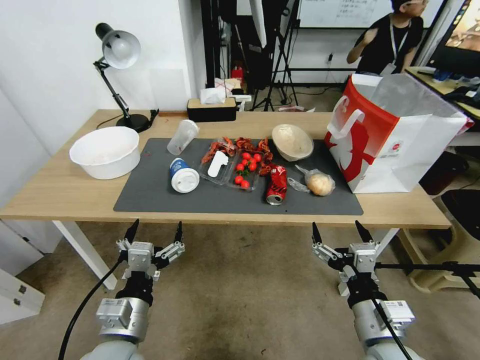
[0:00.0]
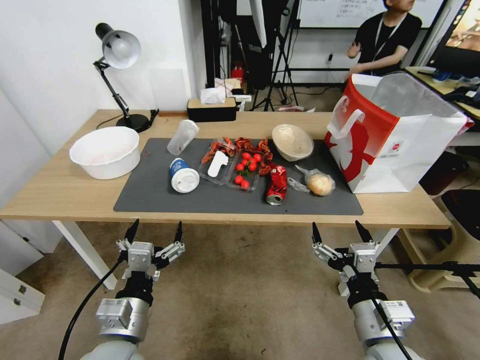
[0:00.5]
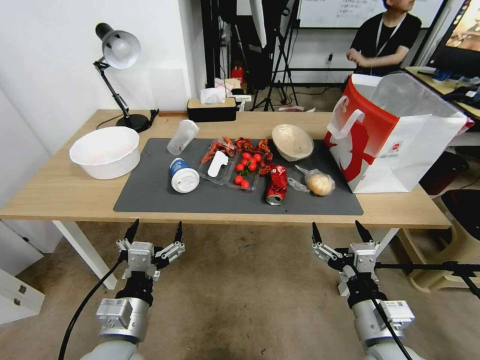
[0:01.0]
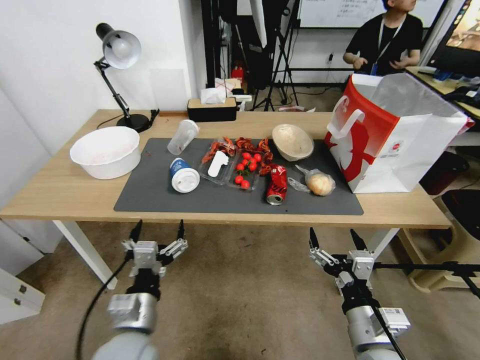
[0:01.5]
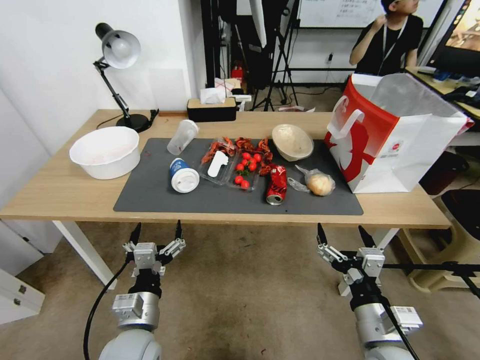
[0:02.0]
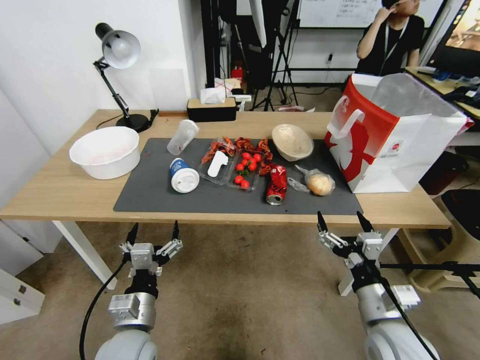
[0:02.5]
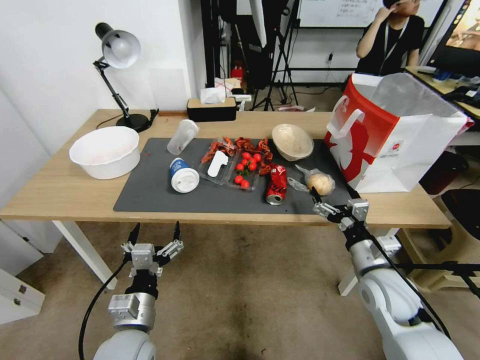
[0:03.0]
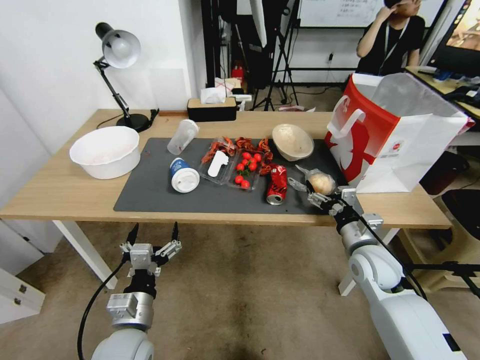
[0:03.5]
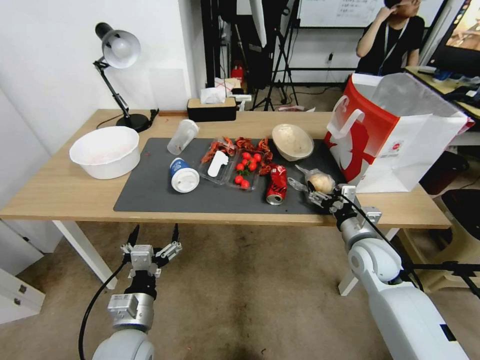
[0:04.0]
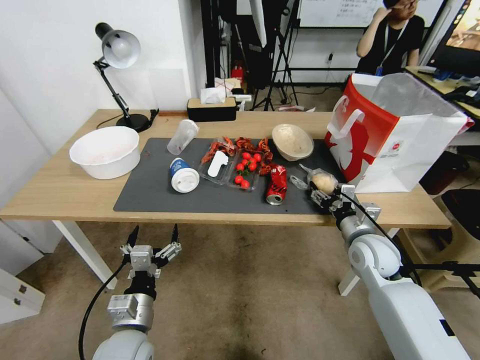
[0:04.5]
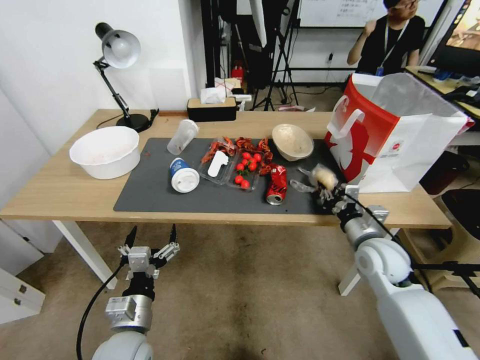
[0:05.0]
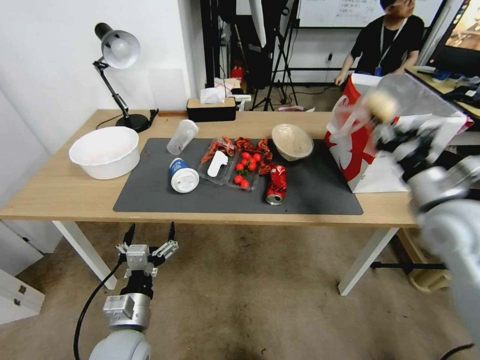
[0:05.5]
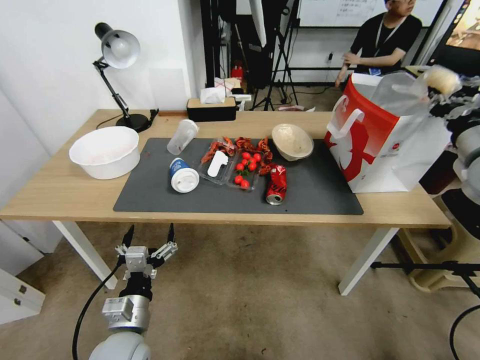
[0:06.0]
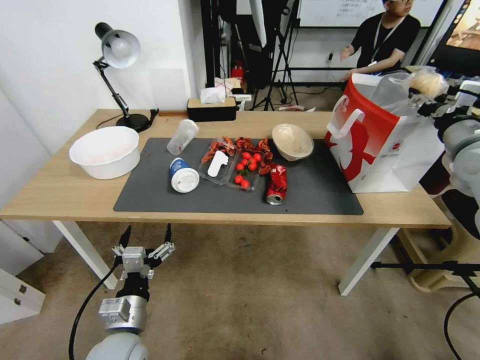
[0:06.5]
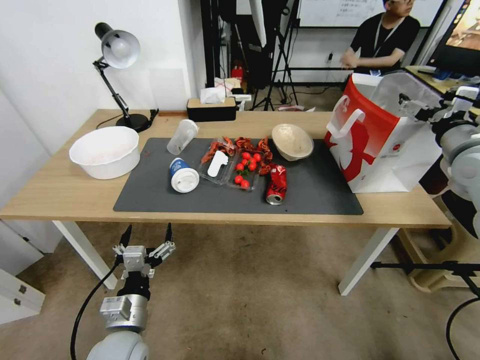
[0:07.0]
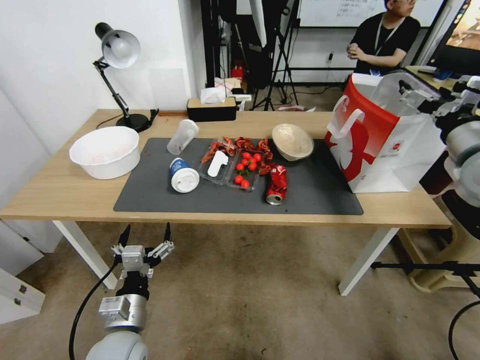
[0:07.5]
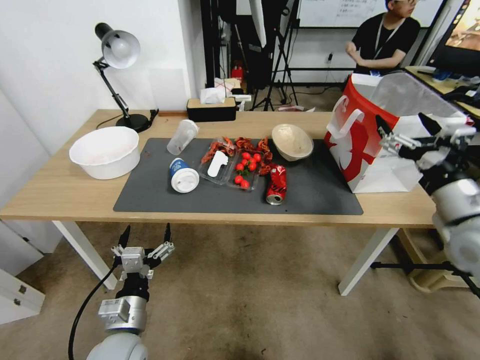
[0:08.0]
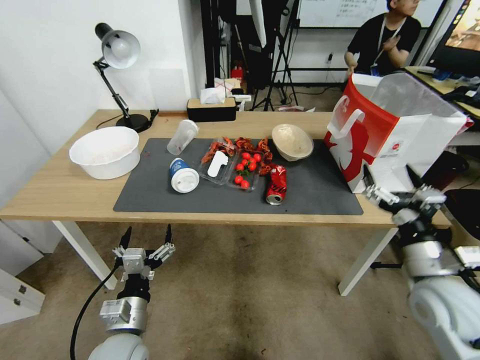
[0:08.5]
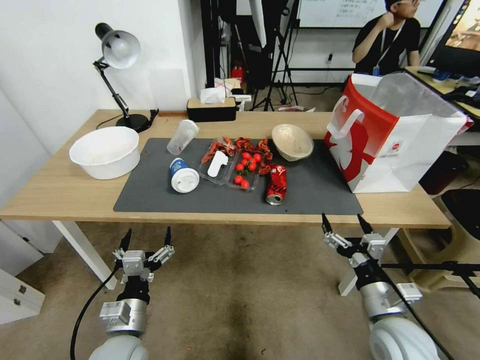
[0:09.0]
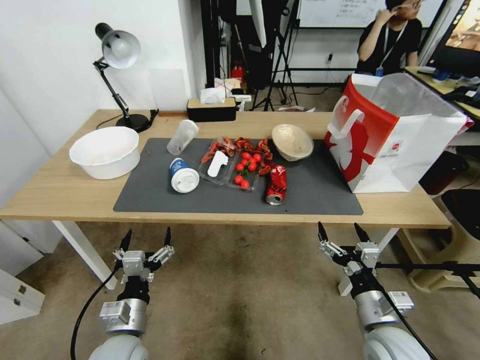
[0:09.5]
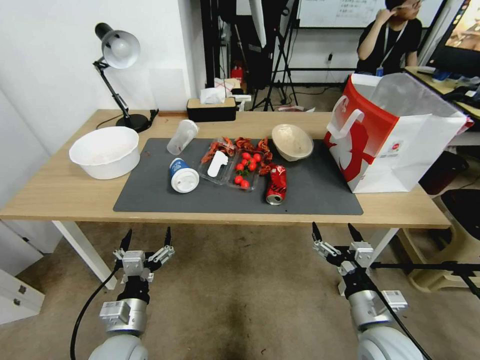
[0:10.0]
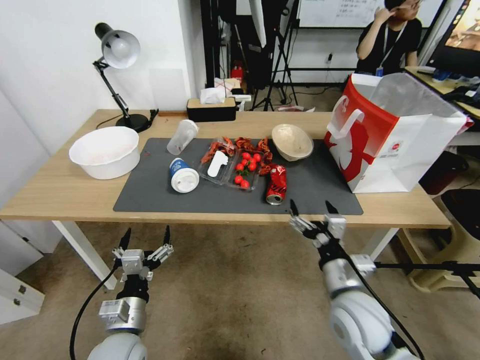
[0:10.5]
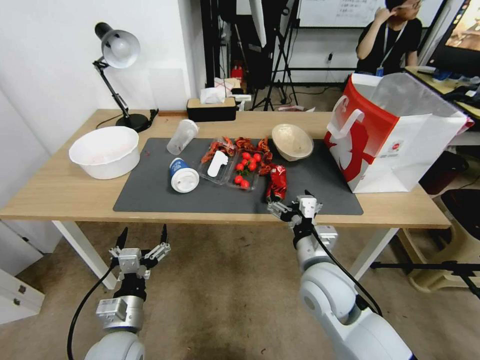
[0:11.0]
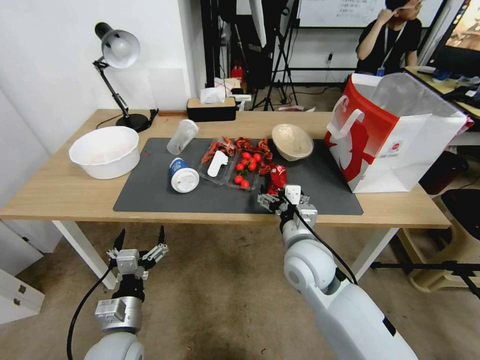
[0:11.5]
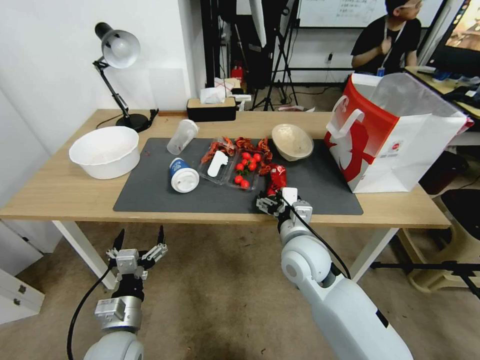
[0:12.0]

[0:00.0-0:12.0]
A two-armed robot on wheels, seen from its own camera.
0:02.0 to 0:04.0: The right gripper travels forward by approximately 20 cm.
0:04.0 to 0:06.0: The right gripper is displaced upward and to the right by about 30 cm, and closes.
0:06.0 to 0:08.0: The right gripper travels backward and to the left by about 10 cm, and opens up.
0:08.0 to 0:10.0: The right gripper goes some 30 cm downward, backward and to the left.
0:10.0 to 0:12.0: The right gripper travels forward, to the left and upward by approximately 20 cm.

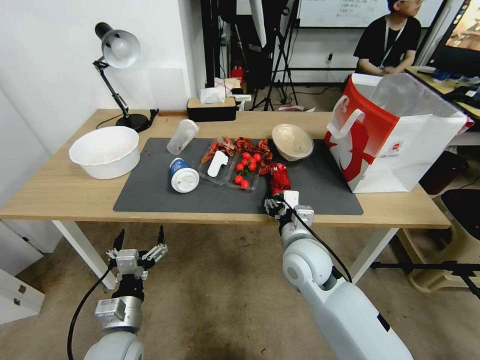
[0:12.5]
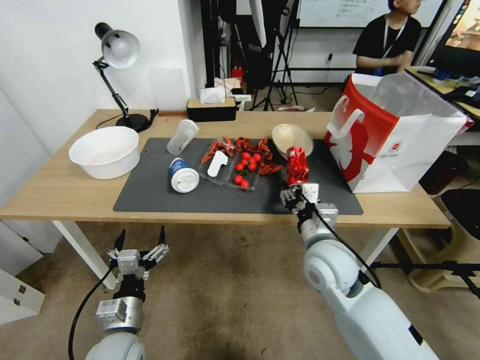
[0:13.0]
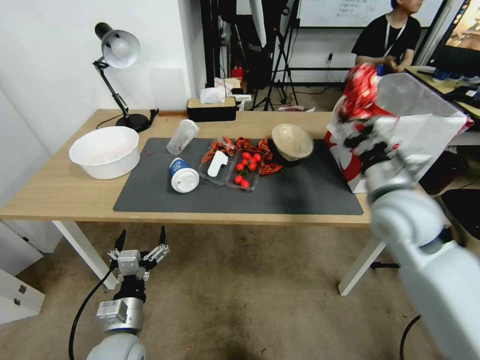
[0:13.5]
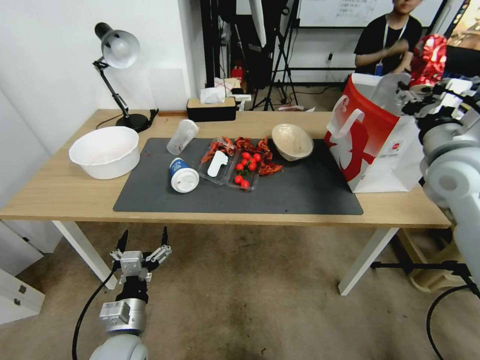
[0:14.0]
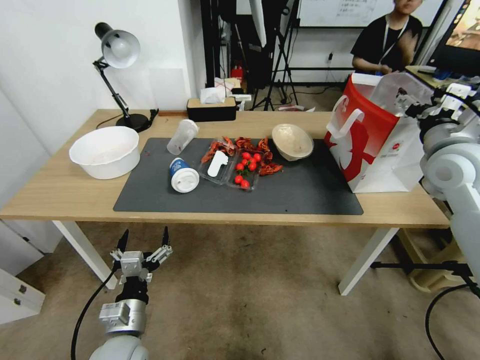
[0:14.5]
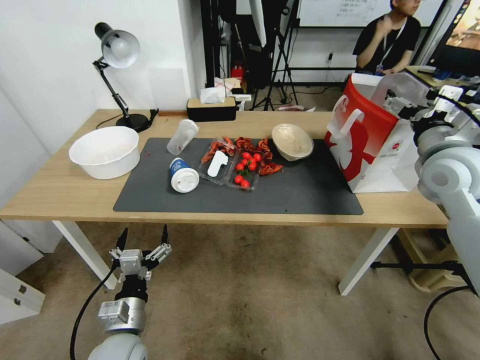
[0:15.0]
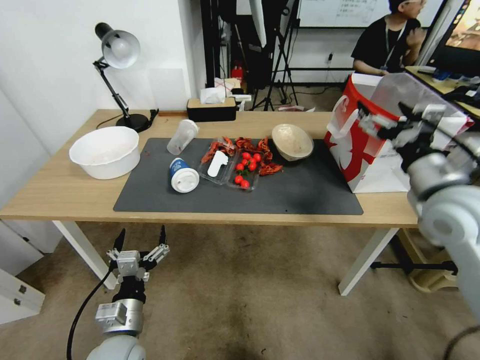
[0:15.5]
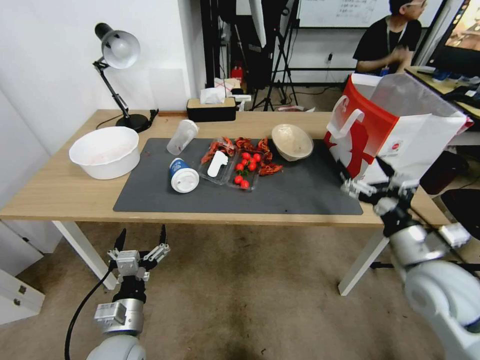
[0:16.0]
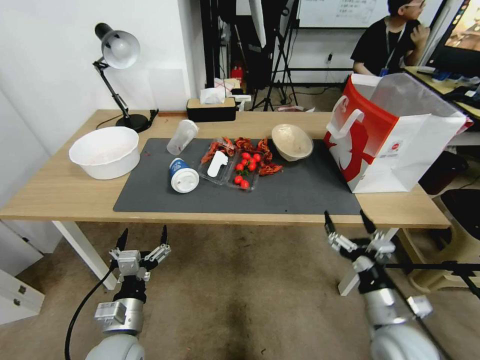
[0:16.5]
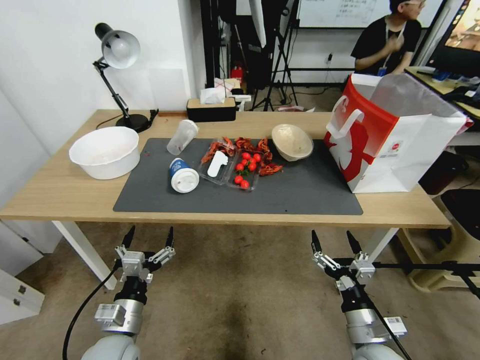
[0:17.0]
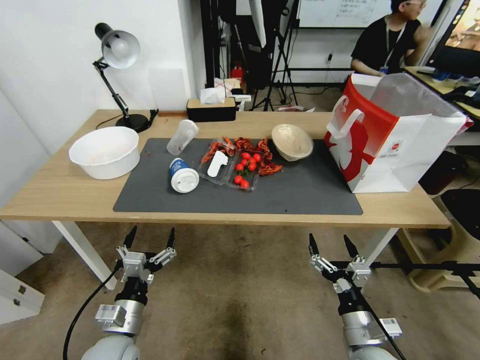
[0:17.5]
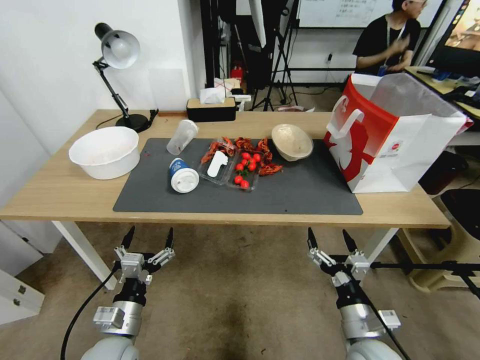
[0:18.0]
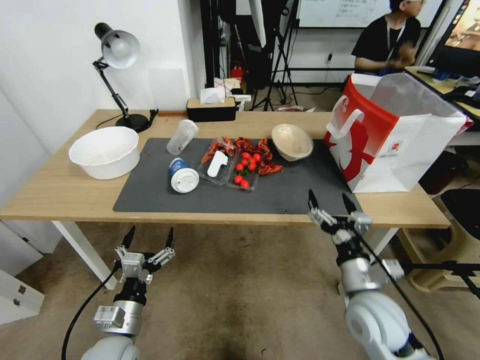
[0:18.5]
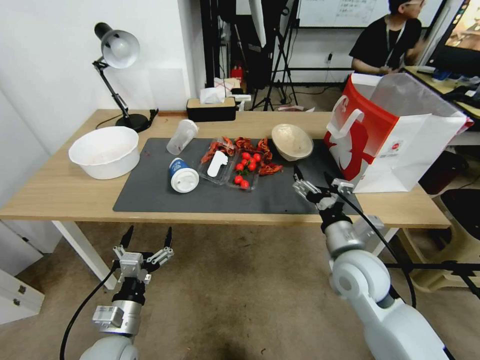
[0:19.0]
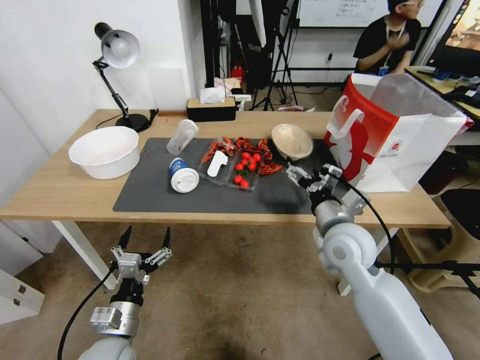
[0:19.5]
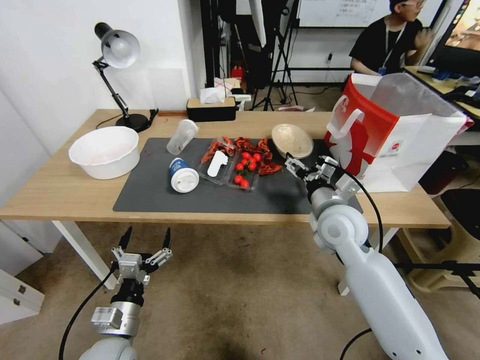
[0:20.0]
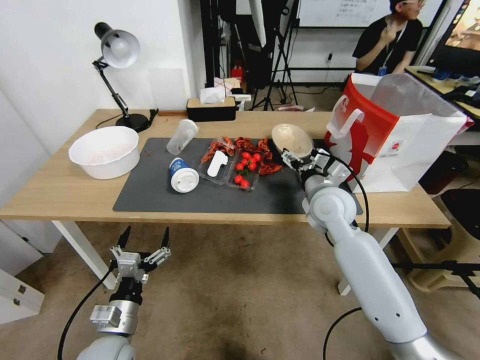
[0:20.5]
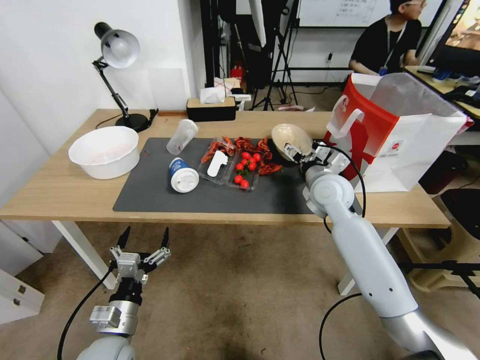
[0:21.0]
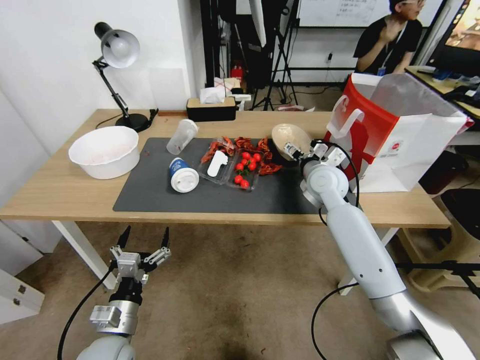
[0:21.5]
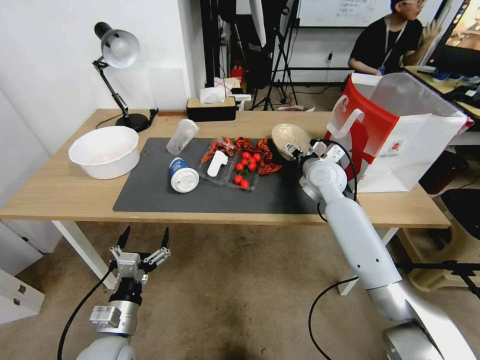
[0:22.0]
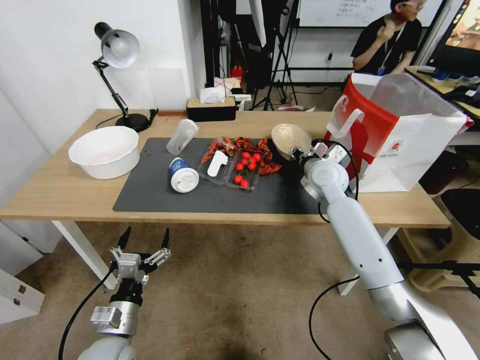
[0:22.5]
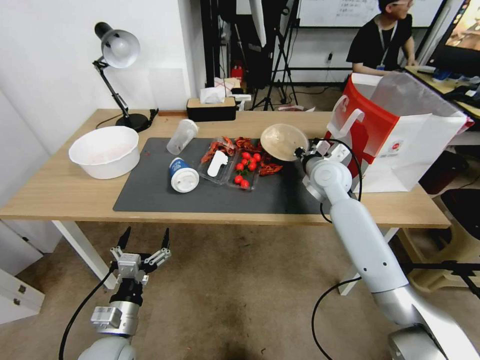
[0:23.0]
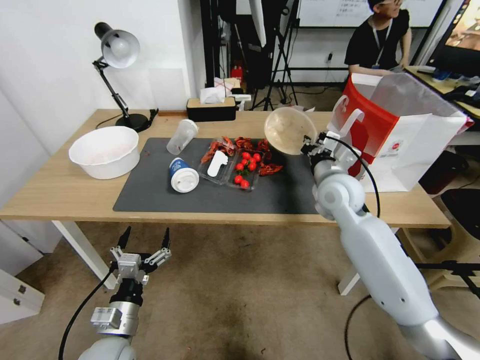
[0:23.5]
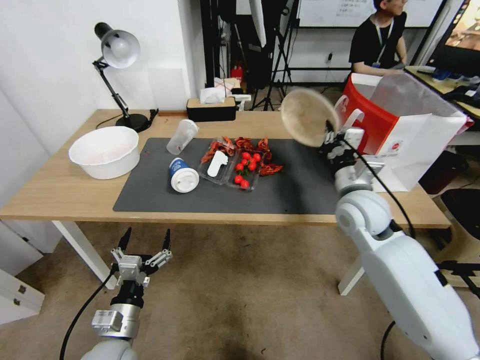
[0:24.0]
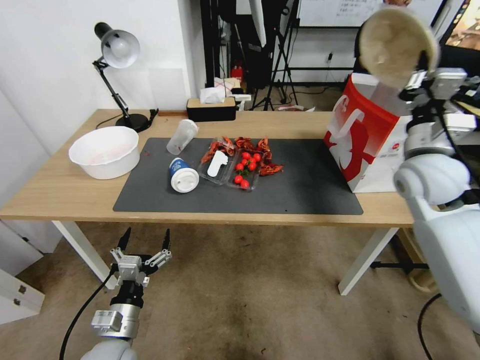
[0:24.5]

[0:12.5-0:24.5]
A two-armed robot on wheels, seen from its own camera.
0:12.5 to 0:14.5: The right gripper travels to the right and upward by approximately 30 cm.
0:14.5 to 0:16.5: The right gripper goes approximately 35 cm downward and backward.
0:16.5 to 0:18.5: The right gripper shifts about 5 cm forward.
0:18.5 to 0:20.5: The right gripper shifts approximately 20 cm forward and upward.
0:20.5 to 0:22.5: The right gripper heads forward, covering some 10 cm, and closes up.
0:22.5 to 0:24.5: The right gripper shifts roughly 20 cm to the right, upward and backward, and closes.

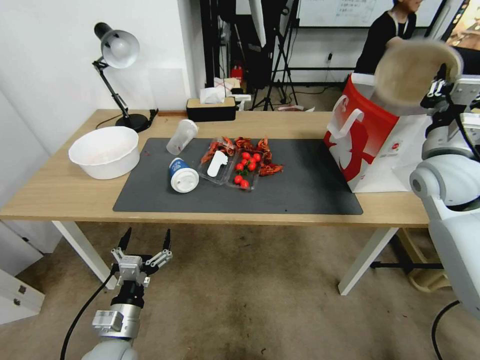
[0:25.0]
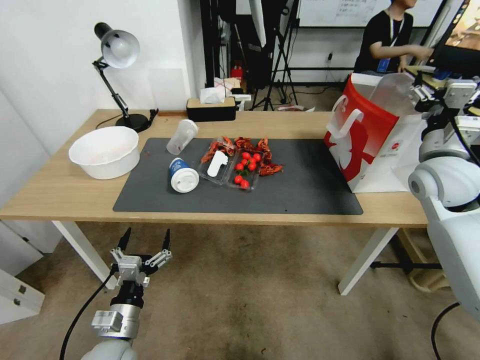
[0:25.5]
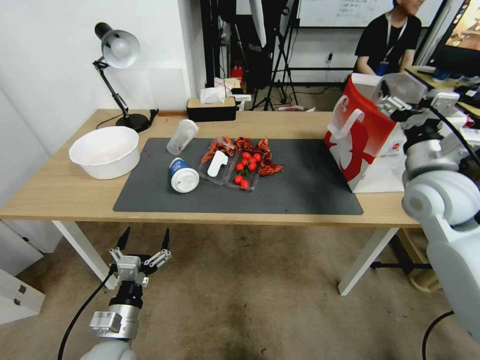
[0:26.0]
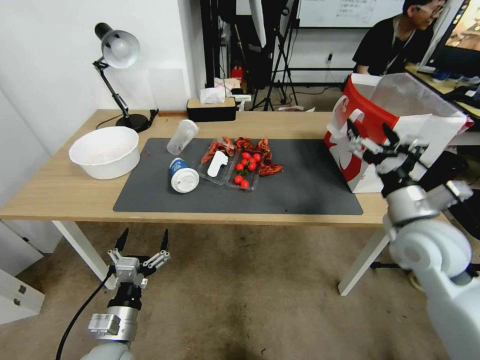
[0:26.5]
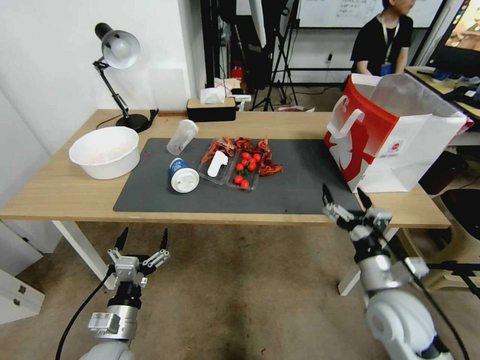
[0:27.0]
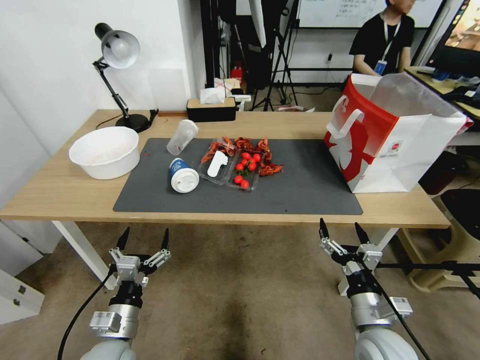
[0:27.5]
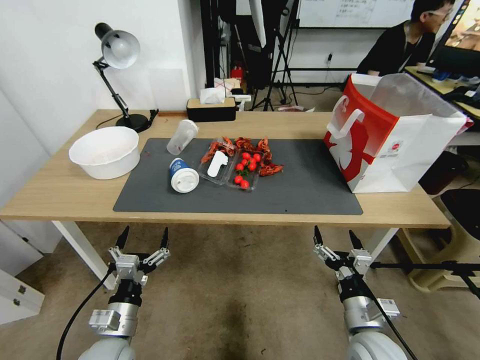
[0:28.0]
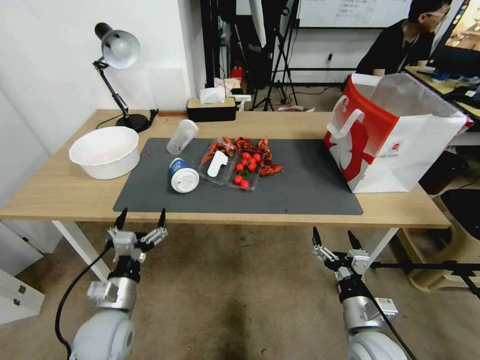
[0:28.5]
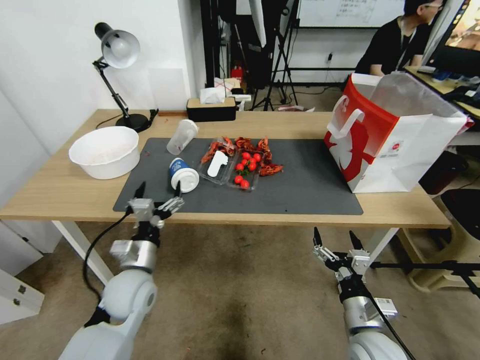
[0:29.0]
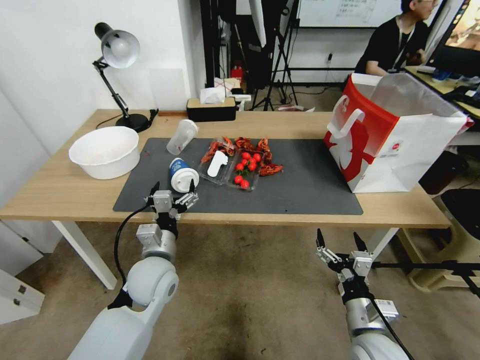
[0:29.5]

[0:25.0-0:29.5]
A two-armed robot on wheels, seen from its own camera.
0:25.0 to 0:27.0: The right gripper heads backward, downward and to the left, covering some 25 cm, and opens.
0:27.0 to 0:29.5: The left gripper heads forward, covering some 10 cm. Meanwhile the right gripper goes some 10 cm downward and backward.
